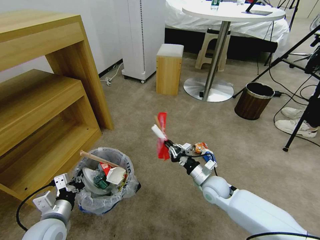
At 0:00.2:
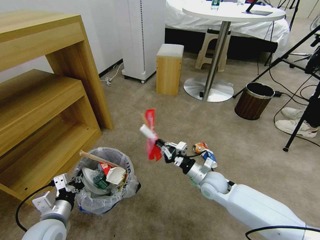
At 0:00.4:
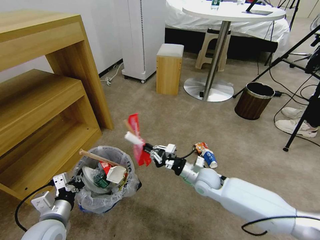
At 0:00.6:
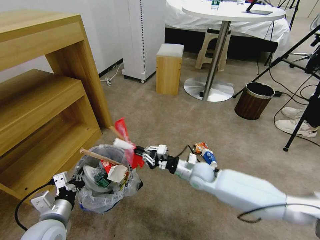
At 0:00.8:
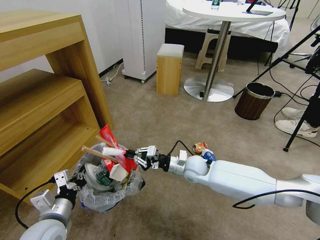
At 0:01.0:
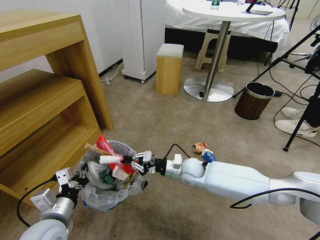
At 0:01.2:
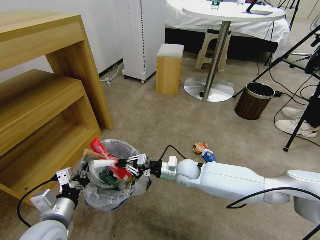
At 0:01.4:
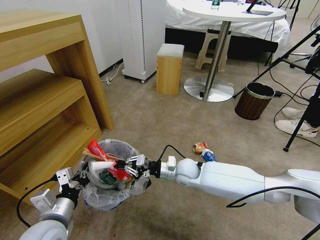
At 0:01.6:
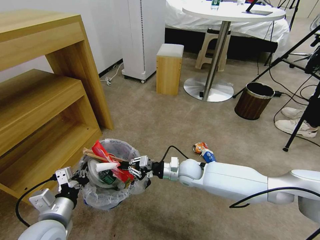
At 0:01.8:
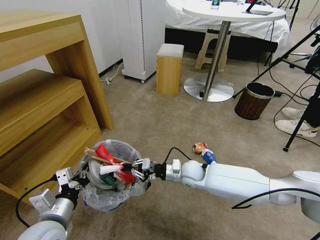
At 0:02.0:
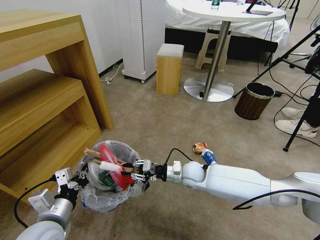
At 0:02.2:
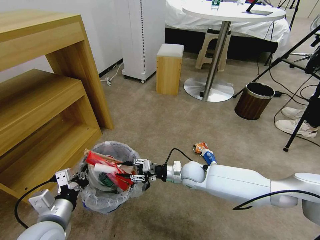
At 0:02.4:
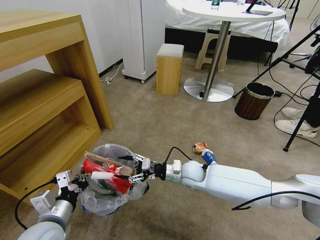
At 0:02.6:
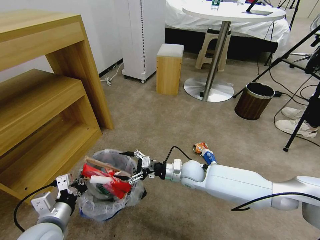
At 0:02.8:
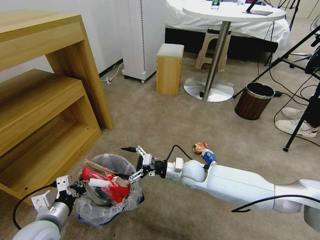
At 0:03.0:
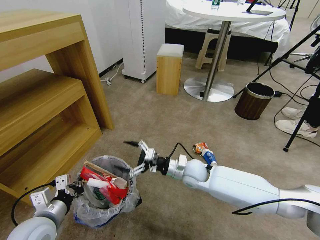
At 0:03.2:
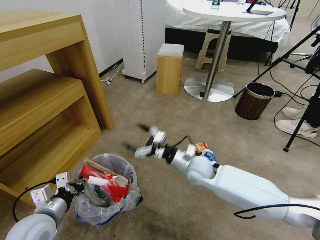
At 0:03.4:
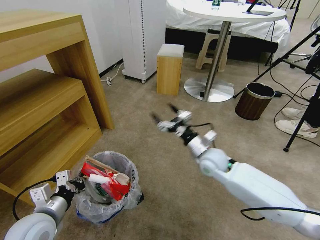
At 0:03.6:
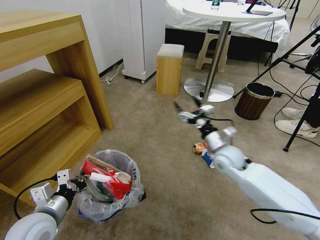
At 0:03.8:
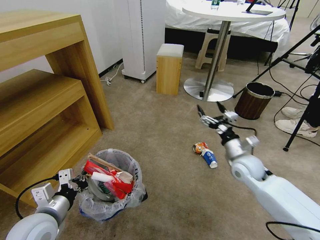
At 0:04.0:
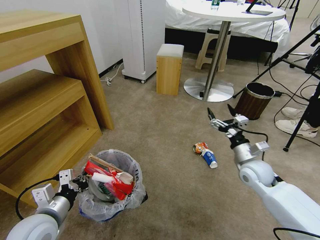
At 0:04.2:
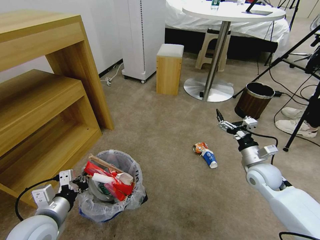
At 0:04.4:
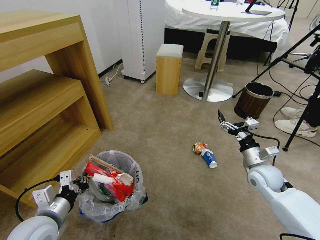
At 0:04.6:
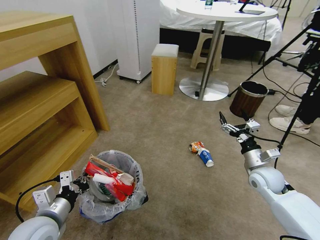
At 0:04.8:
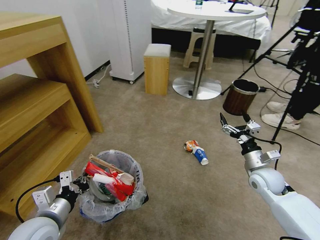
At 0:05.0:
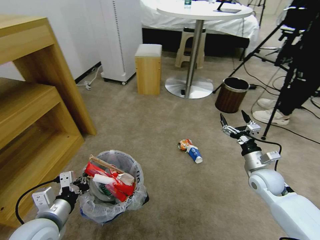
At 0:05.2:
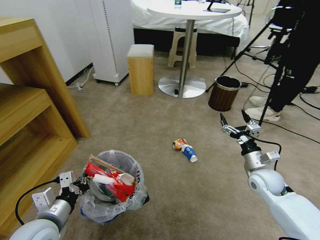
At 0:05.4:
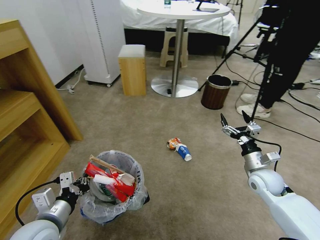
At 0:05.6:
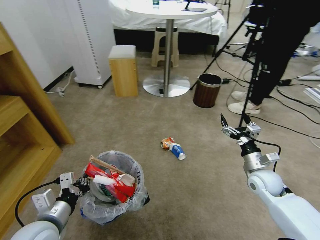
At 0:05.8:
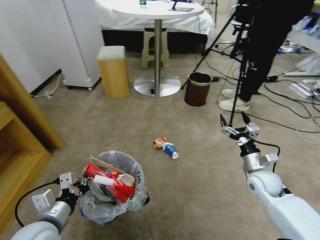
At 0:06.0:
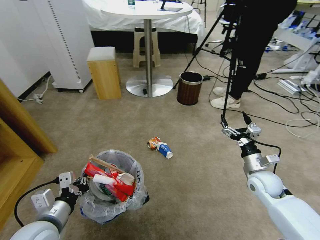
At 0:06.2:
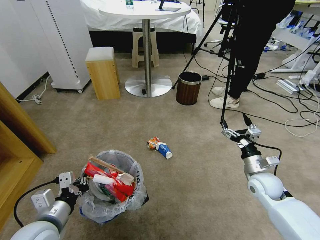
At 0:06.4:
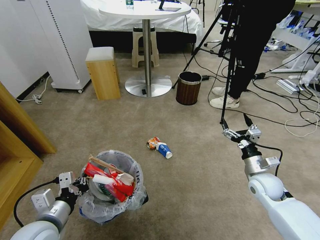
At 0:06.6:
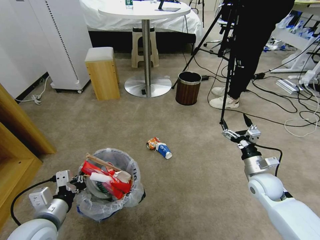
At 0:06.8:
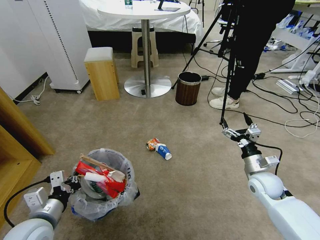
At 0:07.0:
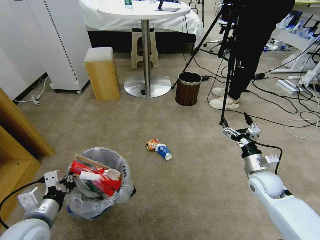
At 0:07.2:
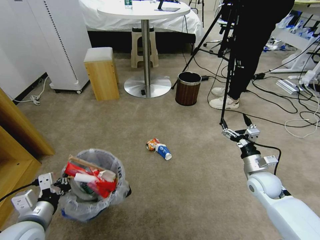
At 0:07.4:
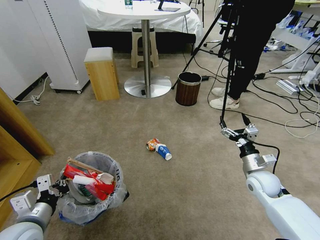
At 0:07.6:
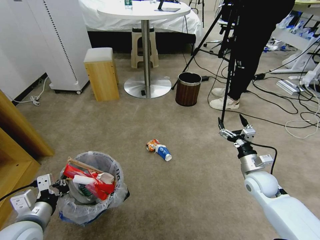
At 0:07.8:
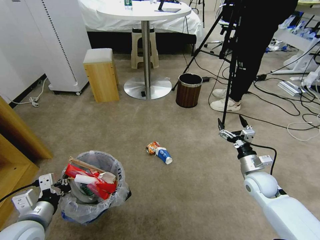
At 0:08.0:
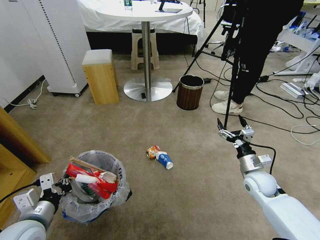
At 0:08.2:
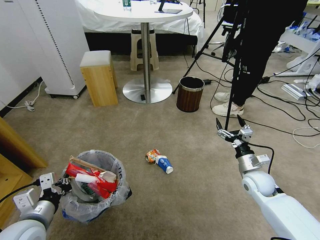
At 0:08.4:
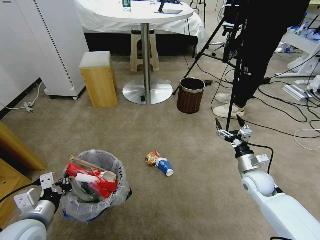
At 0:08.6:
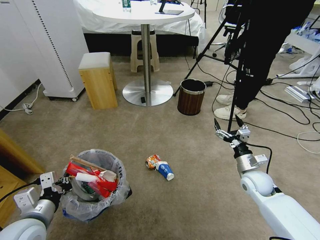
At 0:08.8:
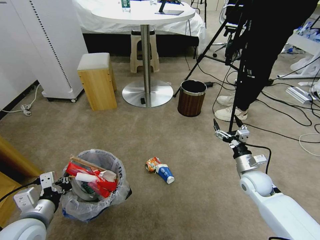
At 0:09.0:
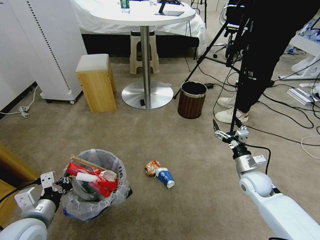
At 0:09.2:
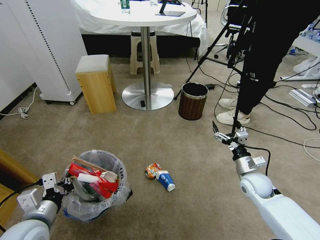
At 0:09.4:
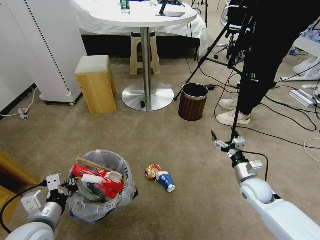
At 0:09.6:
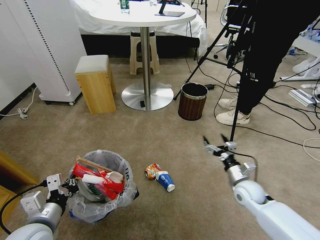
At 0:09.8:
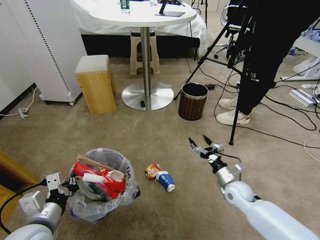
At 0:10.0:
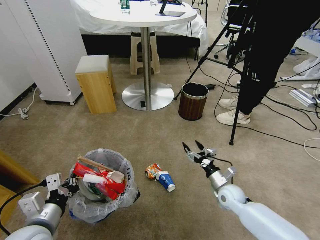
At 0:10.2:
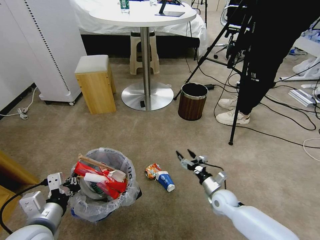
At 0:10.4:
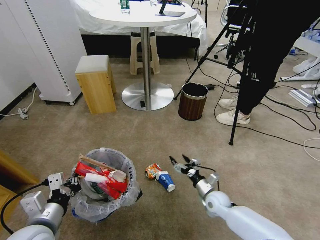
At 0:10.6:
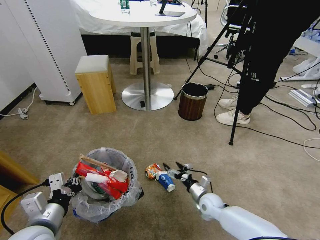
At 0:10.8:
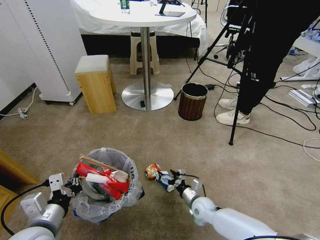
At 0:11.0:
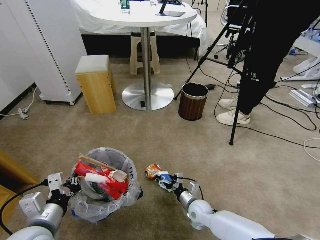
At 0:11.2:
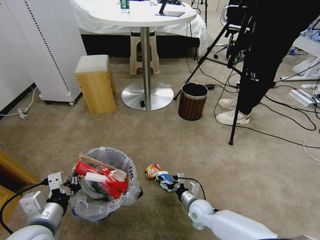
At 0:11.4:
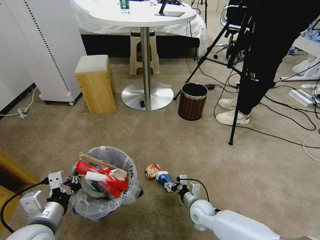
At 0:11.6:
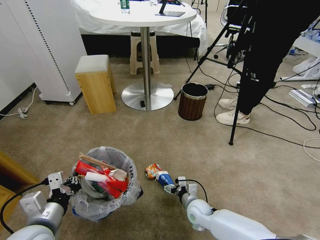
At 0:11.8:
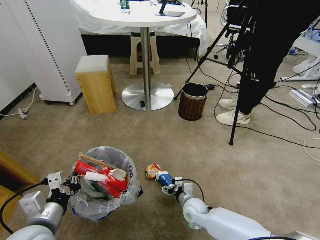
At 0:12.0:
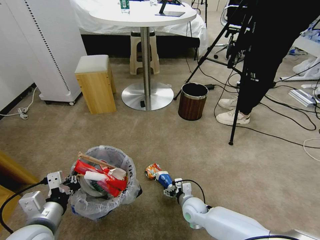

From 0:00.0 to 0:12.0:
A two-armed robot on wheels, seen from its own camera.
Task of the whole recording: Pick up the trash bin and place the garbage on the floor into it.
From 0:00.0 to 0:01.6: The left gripper travels upward by approximately 5 cm. The right gripper travels to the left and forward by about 10 cm.
From 0:01.6 to 0:03.0: The right gripper opens.
From 0:03.0 to 0:04.4: The right gripper is displaced to the right by about 25 cm.
From 0:09.0 to 0:10.4: The right gripper goes some 15 cm downward and to the left.
From 0:10.4 to 0:12.0: The right gripper heads to the left, covering approximately 10 cm.

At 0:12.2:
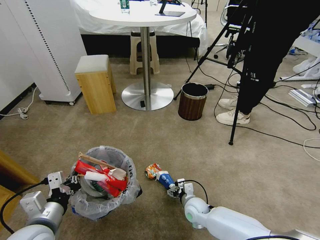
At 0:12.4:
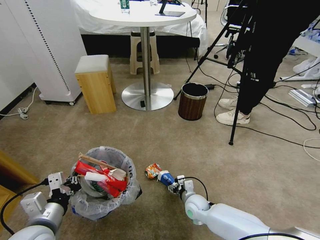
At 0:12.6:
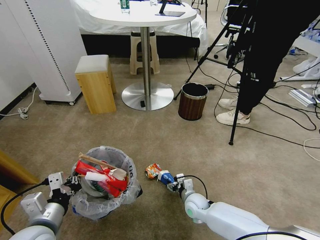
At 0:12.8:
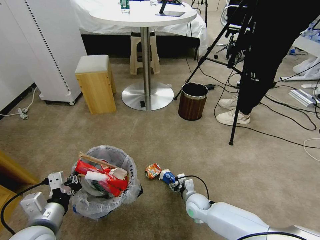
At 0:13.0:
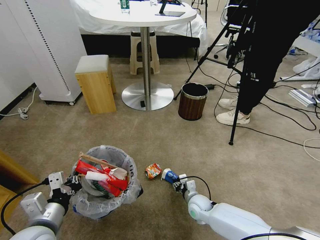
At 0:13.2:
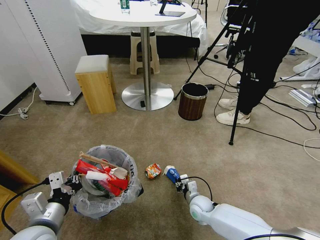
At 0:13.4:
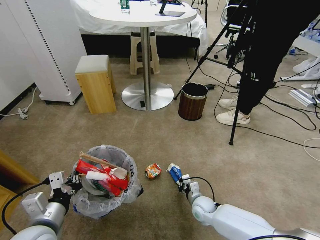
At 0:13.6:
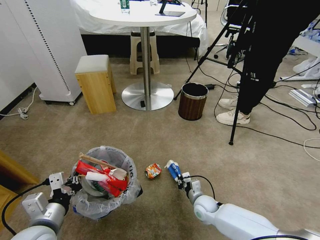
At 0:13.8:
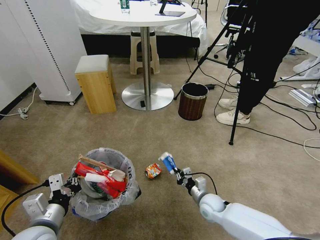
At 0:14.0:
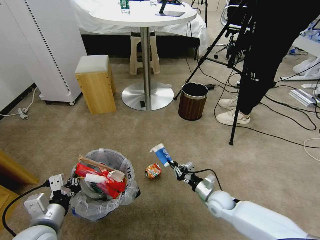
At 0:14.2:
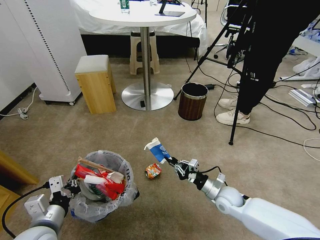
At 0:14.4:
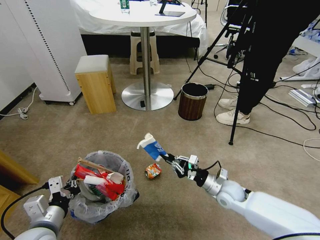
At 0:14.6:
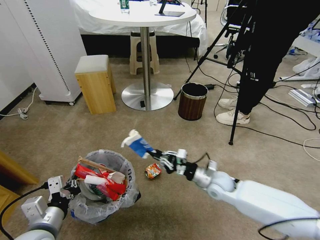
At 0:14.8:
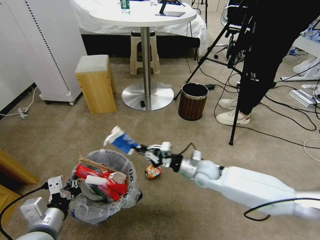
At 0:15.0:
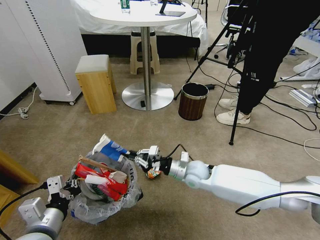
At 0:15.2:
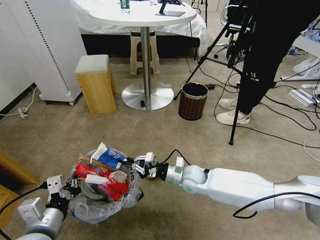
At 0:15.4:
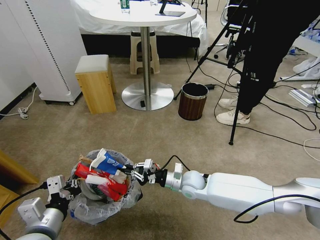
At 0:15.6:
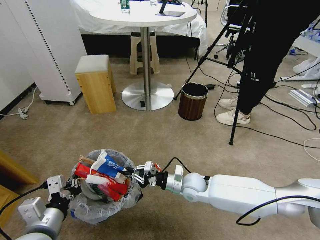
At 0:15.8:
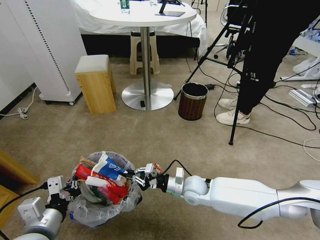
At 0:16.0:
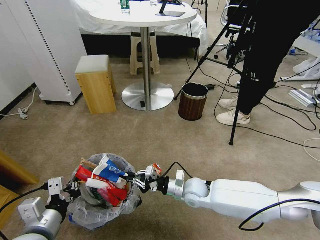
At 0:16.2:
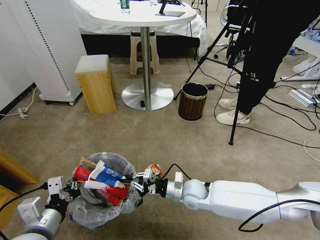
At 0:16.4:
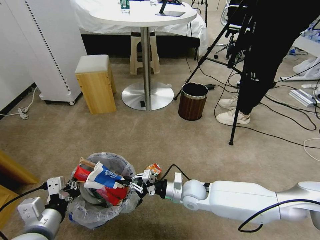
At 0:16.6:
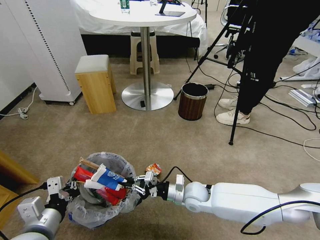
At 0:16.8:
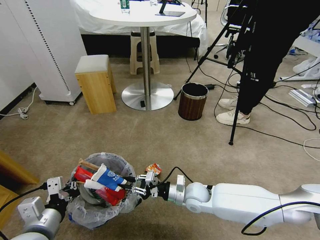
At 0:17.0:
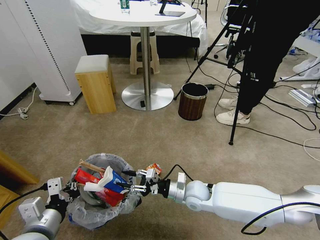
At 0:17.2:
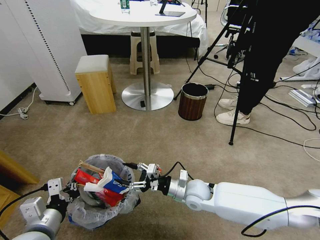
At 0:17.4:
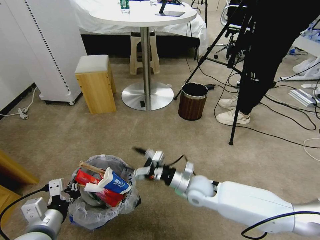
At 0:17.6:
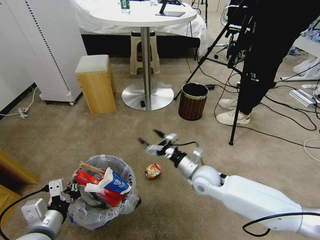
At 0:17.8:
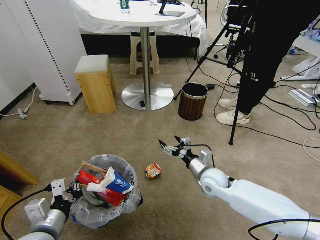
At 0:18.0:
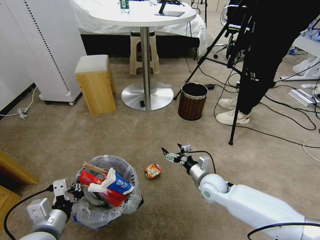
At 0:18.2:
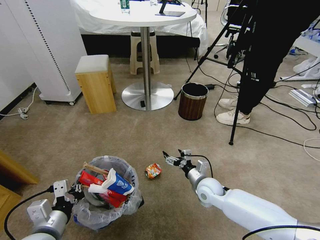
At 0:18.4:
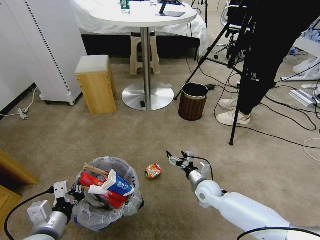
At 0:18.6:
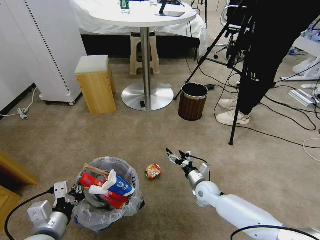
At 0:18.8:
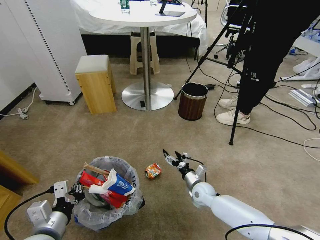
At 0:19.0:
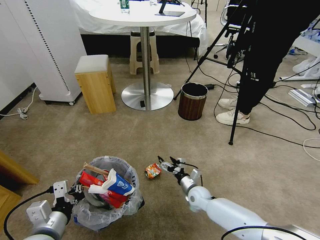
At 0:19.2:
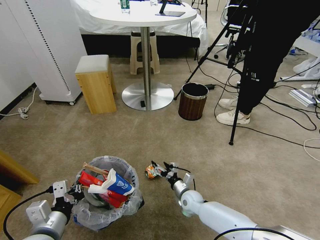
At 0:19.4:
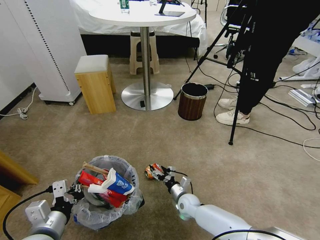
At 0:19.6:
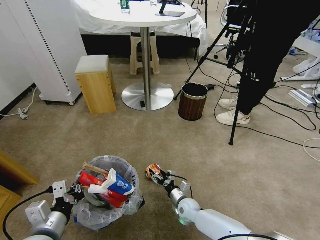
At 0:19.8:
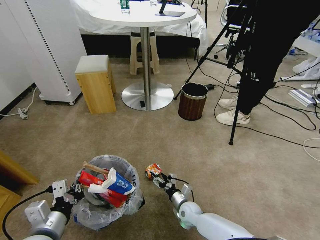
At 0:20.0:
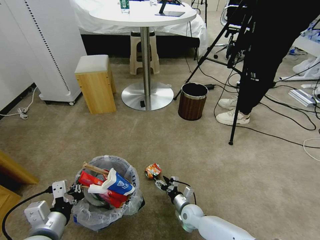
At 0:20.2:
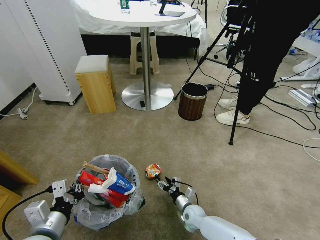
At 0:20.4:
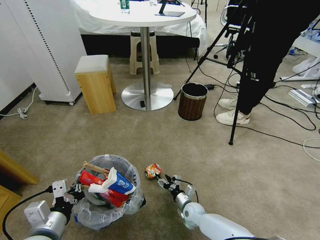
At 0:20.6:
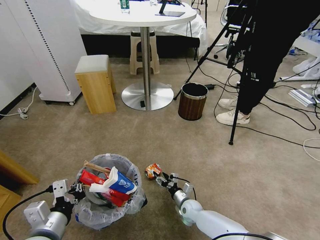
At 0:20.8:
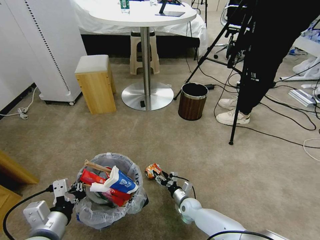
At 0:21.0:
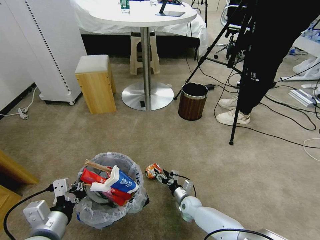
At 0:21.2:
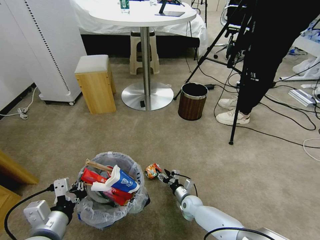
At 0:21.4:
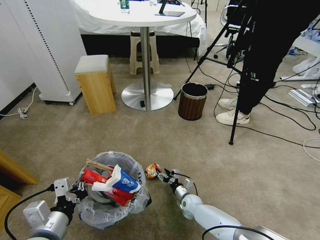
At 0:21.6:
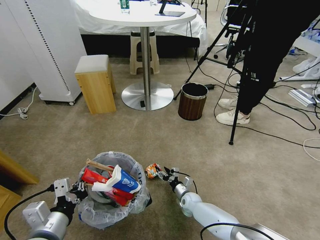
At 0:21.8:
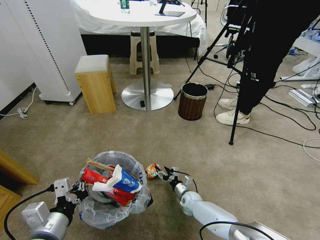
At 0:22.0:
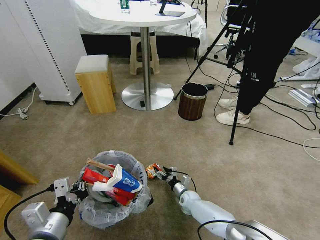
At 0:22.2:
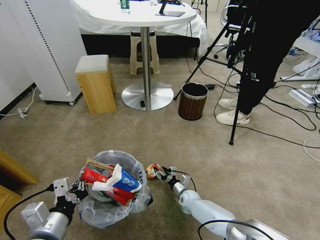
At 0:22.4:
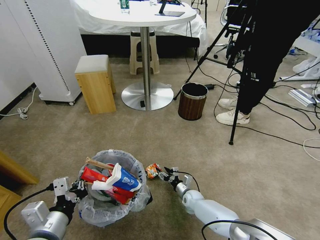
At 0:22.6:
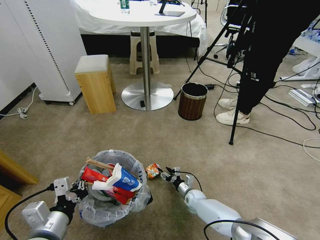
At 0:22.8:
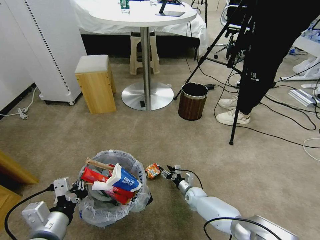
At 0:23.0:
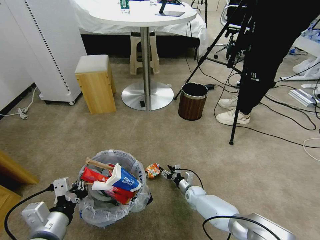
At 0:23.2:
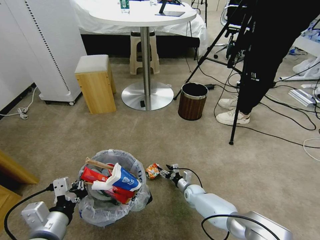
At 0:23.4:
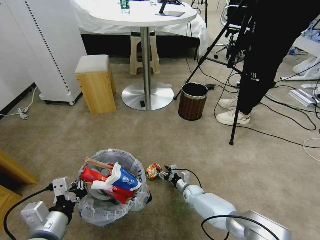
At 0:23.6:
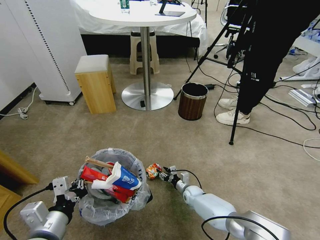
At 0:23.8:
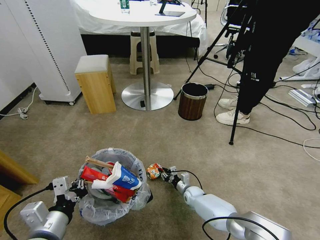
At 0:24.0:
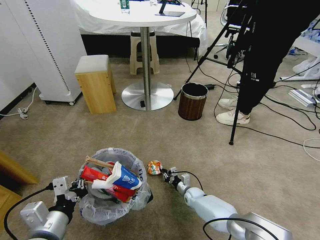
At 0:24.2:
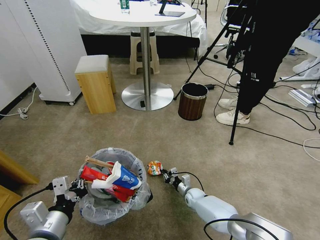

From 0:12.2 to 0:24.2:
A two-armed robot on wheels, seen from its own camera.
Task of the whole recording: Pick up the trash bin and place the garbage on the floor into it.
From 0:12.2 to 0:13.8: The right gripper is displaced to the right by about 5 cm, and closes.
From 0:13.8 to 0:15.2: The right gripper is displaced upward, to the left and forward by some 15 cm.
From 0:15.2 to 0:16.6: The right gripper shifts about 5 cm backward.
From 0:16.6 to 0:18.2: The right gripper shifts roughly 5 cm to the right, moves about 5 cm upward and comes back, and opens its fingers.
From 0:18.2 to 0:19.8: The right gripper shifts roughly 15 cm downward and to the left.
From 0:19.8 to 0:21.2: The right gripper changes place by about 5 cm.
From 0:21.2 to 0:22.6: The grippers move only a little.
From 0:22.6 to 0:24.2: The right gripper closes up.
